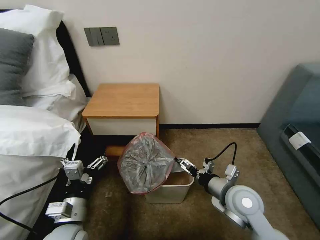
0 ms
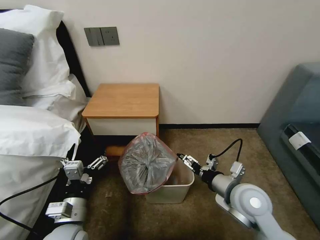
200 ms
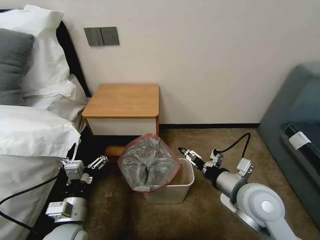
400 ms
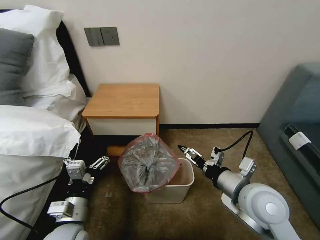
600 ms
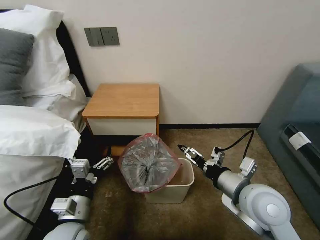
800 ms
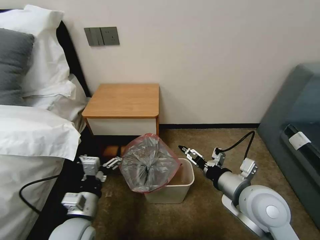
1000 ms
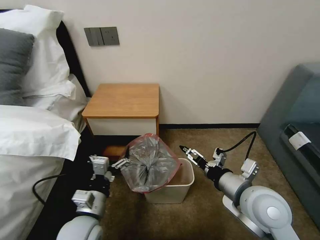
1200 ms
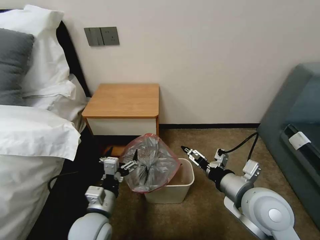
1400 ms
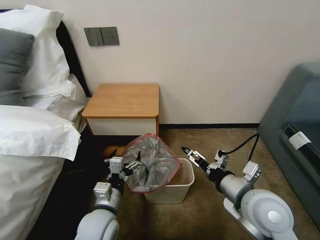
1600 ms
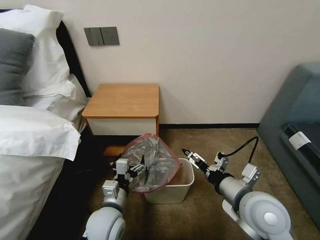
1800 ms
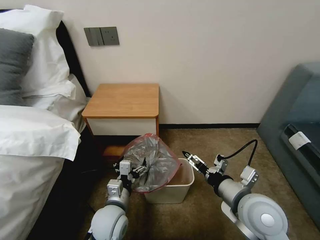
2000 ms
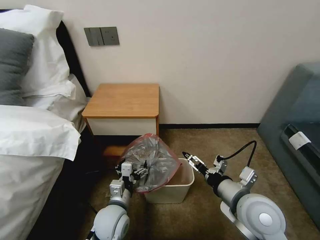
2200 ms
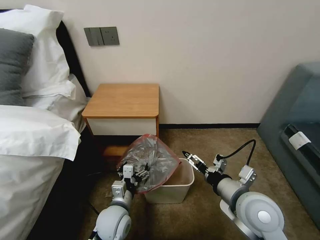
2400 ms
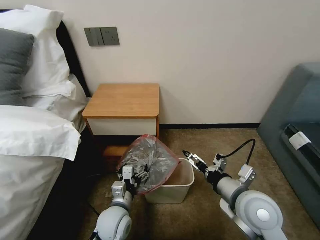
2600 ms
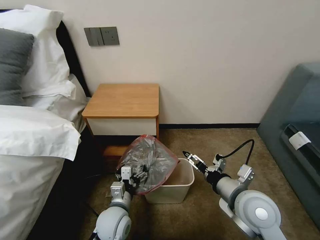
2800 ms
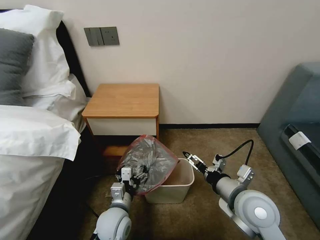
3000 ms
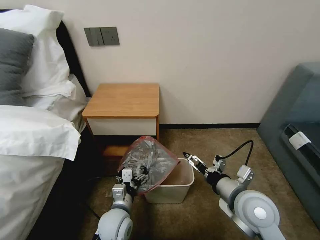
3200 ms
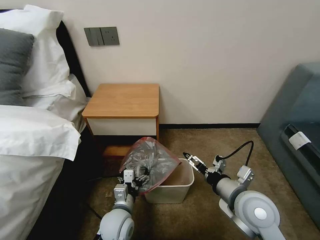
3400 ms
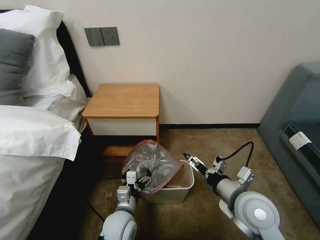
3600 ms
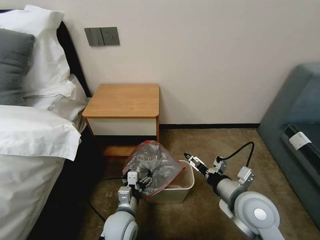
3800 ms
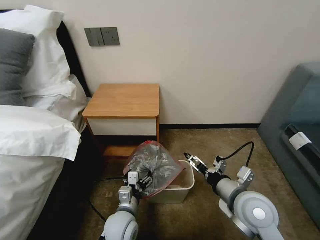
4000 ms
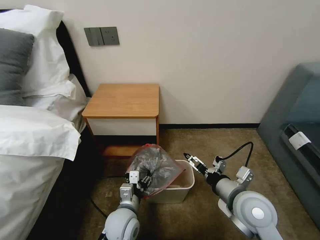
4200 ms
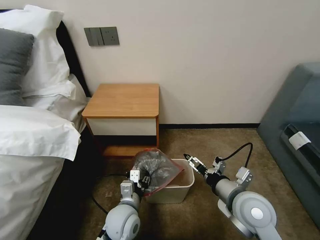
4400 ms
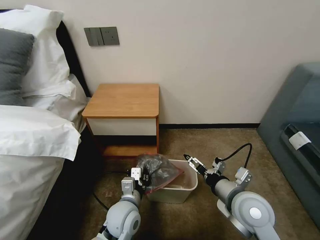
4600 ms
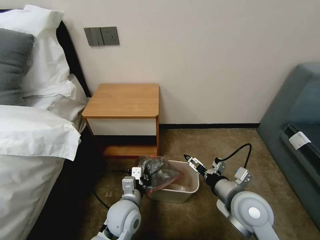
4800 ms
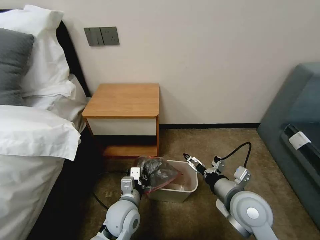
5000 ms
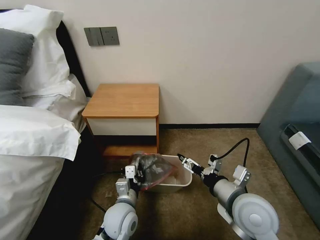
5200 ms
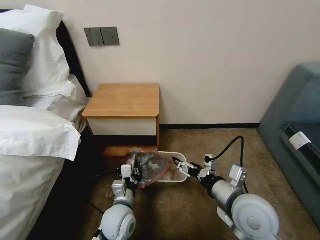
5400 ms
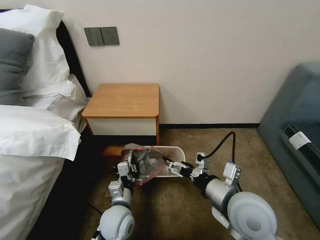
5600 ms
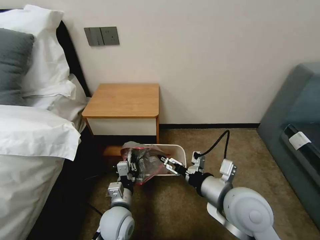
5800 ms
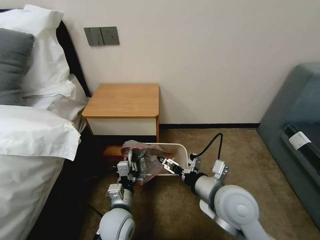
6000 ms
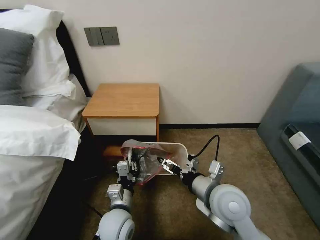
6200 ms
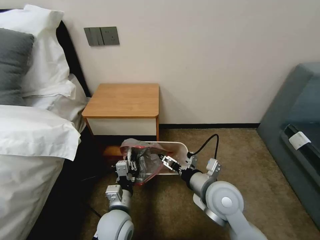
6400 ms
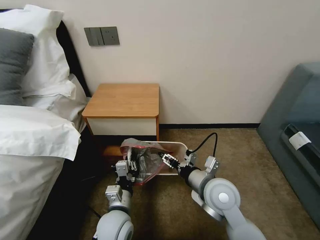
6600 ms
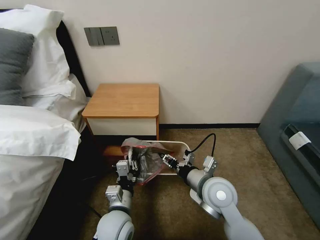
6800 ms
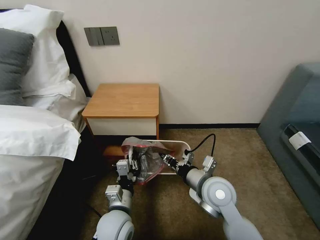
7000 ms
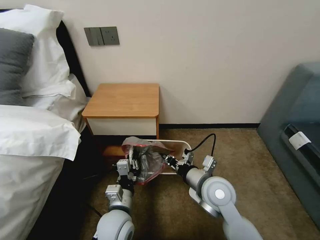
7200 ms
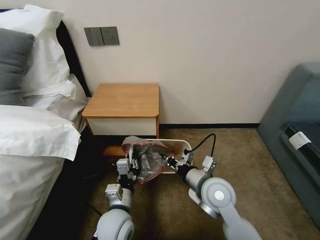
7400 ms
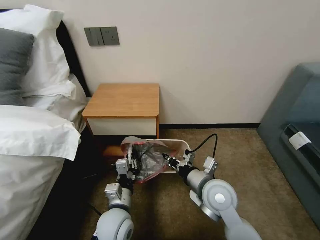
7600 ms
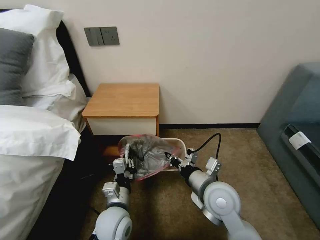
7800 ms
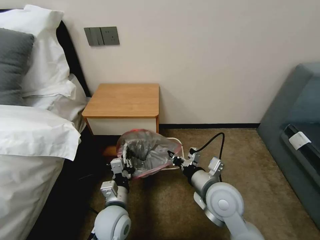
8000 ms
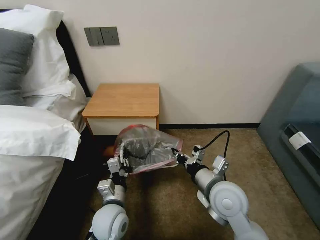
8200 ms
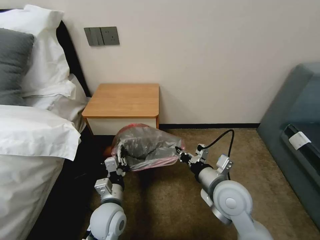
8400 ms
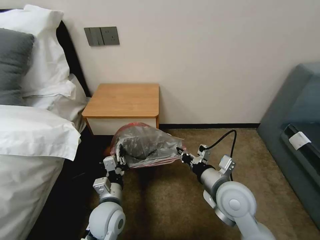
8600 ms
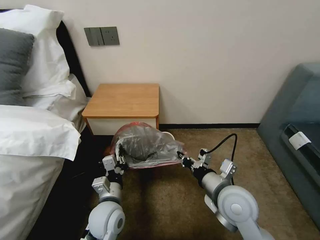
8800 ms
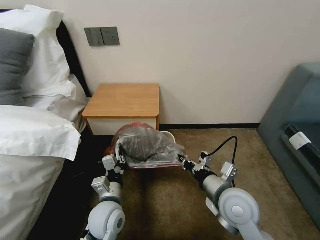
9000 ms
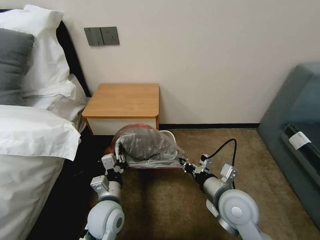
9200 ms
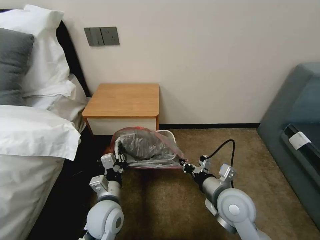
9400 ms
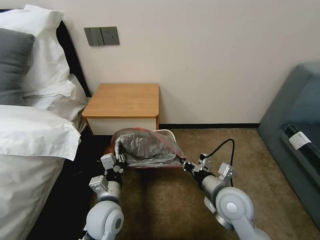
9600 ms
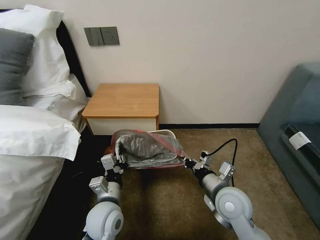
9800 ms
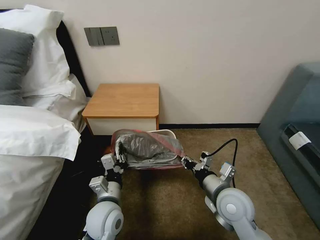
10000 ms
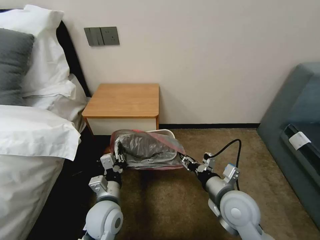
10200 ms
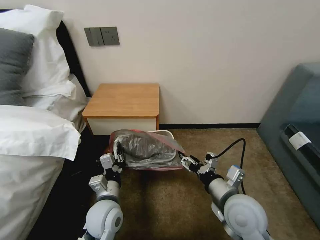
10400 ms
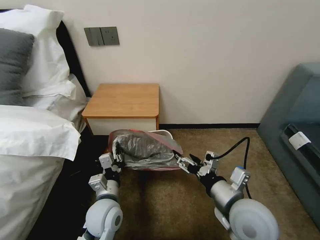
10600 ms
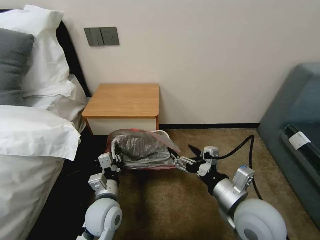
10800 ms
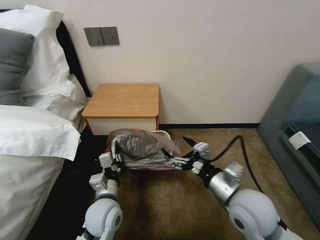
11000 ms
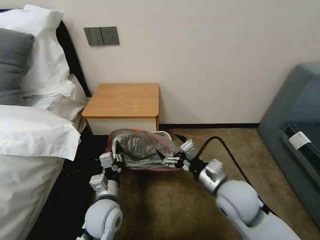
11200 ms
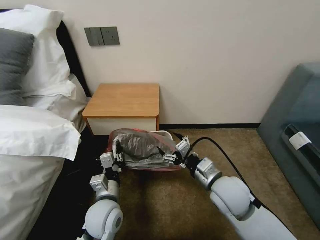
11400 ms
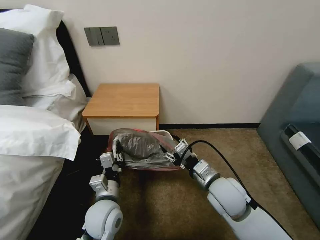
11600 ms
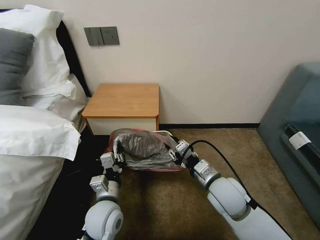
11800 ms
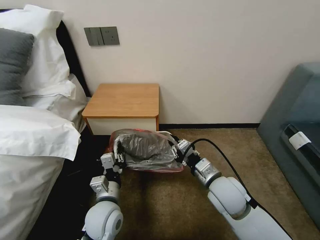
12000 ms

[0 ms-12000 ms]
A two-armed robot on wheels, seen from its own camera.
Task of the whole recording: Pick up the garbage bag from the table and place it over the trash can.
0 ms to 1600 ms: The right gripper is displaced upward by about 5 cm, while the left gripper goes some 5 cm to the right.
1600 ms to 3000 ms: The left gripper travels downward by roughly 5 cm.
3000 ms to 4400 ms: The left gripper closes.
4400 ms to 6000 ms: The left gripper closes up. Meanwhile the right gripper is displaced to the left by about 5 cm.
6000 ms to 7600 ms: The right gripper shifts by about 5 cm, and closes.
7600 ms to 9000 ms: The right gripper ends up about 5 cm from where it was.
9000 ms to 10400 ms: The right gripper opens its fingers.
10400 ms to 12000 ms: The right gripper moves forward, roughly 5 cm, and closes up.

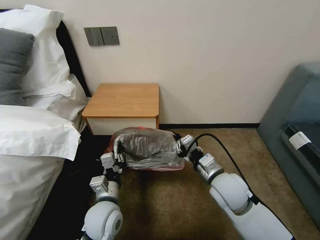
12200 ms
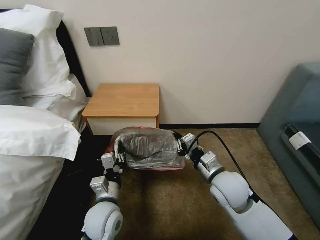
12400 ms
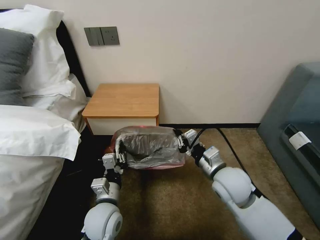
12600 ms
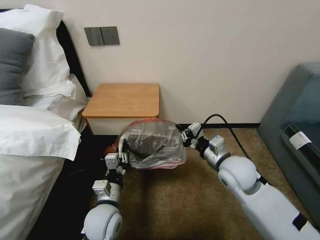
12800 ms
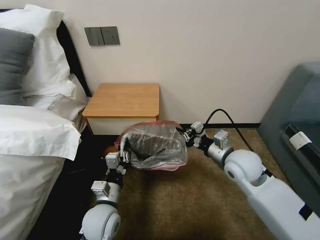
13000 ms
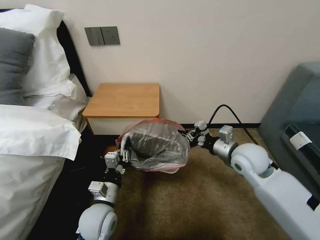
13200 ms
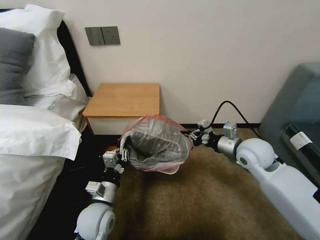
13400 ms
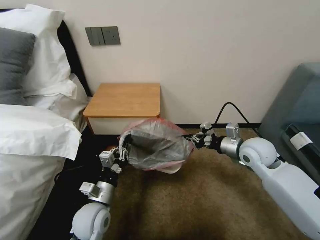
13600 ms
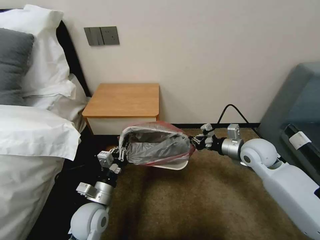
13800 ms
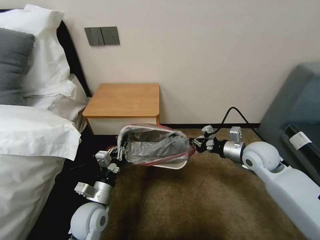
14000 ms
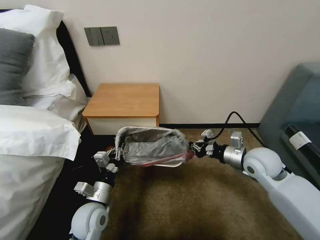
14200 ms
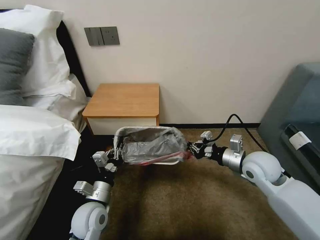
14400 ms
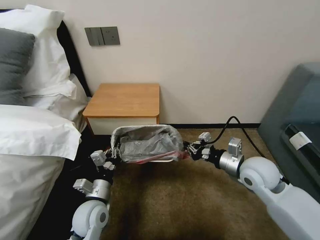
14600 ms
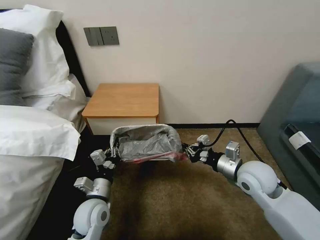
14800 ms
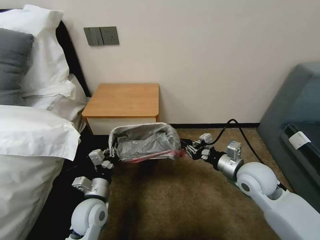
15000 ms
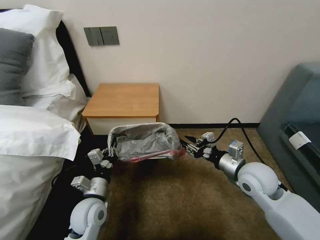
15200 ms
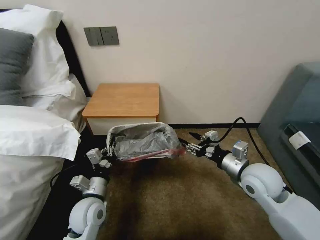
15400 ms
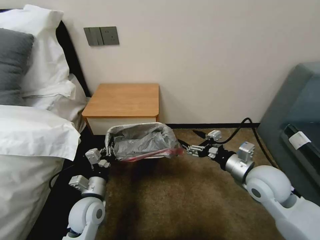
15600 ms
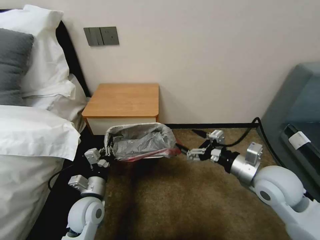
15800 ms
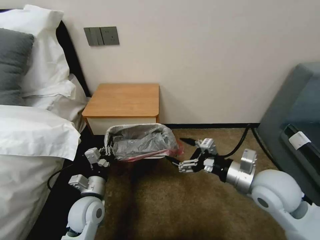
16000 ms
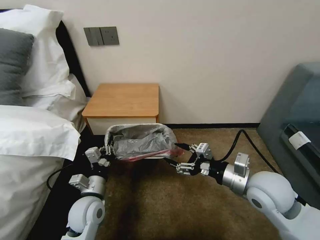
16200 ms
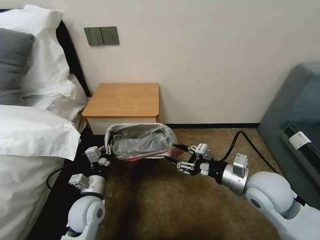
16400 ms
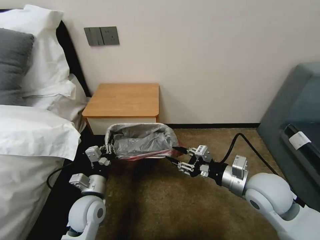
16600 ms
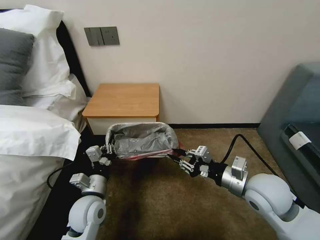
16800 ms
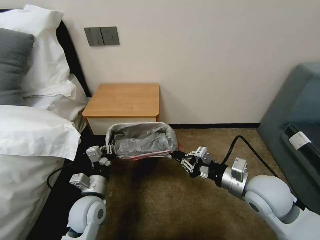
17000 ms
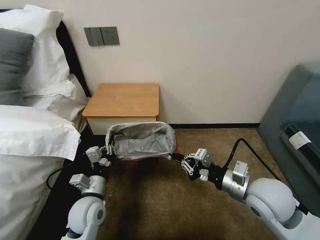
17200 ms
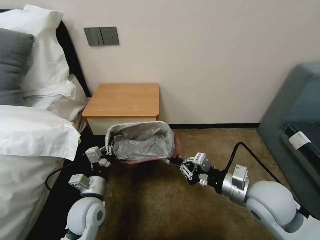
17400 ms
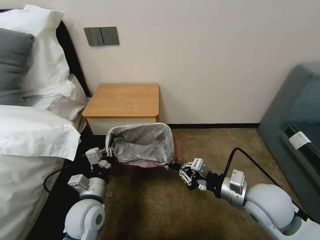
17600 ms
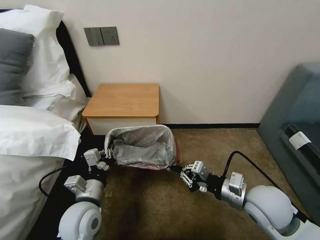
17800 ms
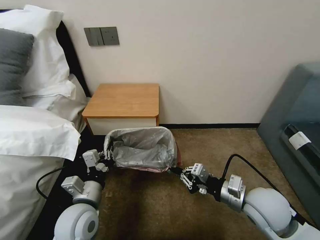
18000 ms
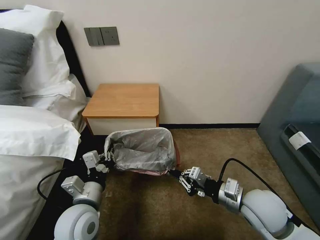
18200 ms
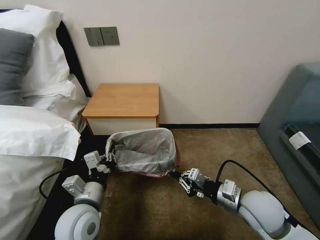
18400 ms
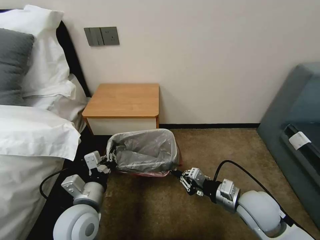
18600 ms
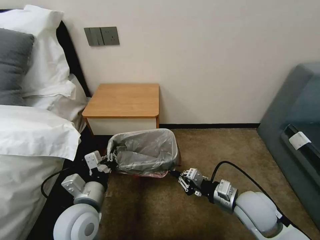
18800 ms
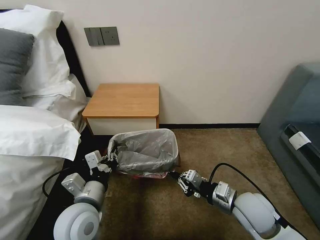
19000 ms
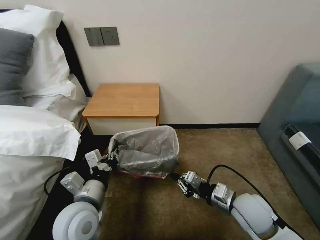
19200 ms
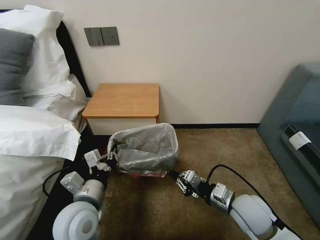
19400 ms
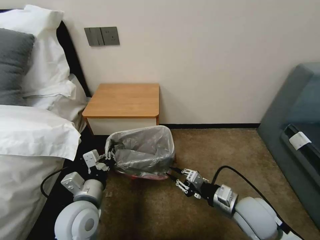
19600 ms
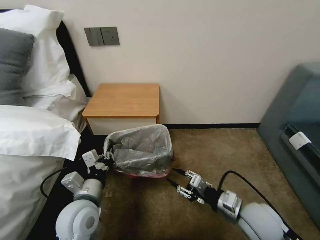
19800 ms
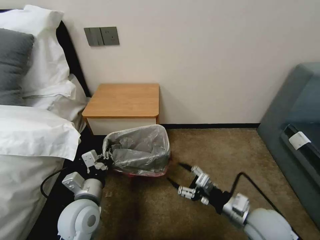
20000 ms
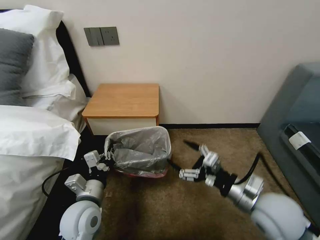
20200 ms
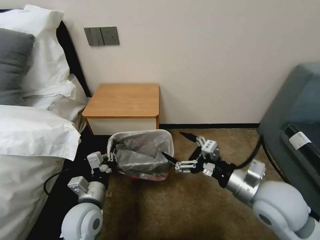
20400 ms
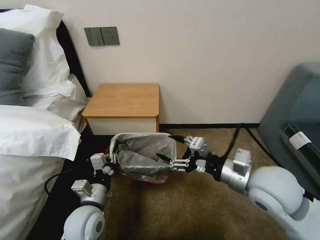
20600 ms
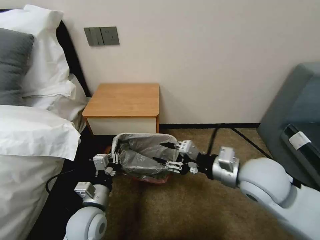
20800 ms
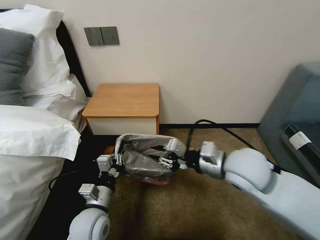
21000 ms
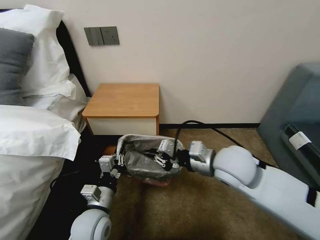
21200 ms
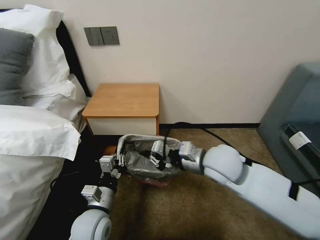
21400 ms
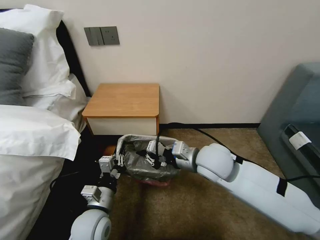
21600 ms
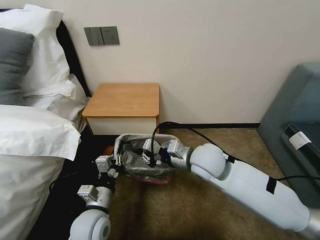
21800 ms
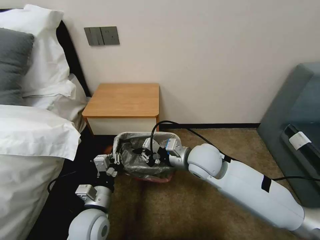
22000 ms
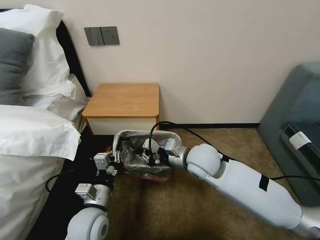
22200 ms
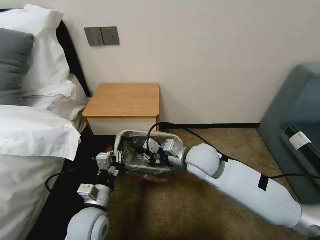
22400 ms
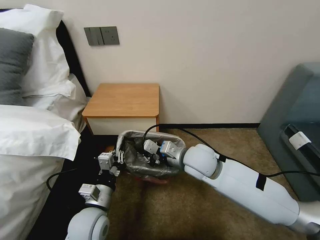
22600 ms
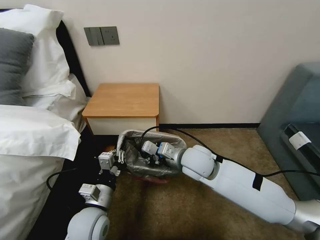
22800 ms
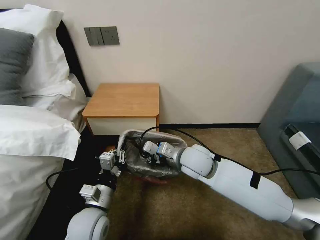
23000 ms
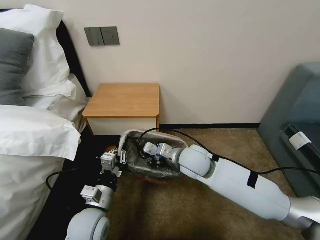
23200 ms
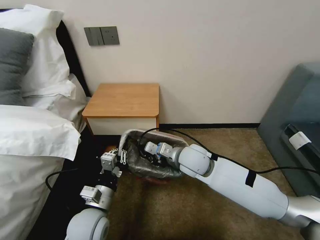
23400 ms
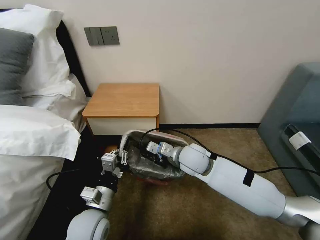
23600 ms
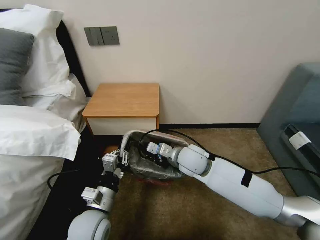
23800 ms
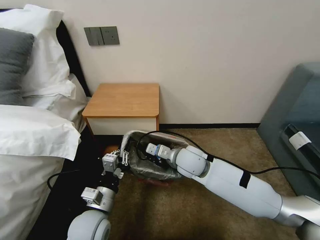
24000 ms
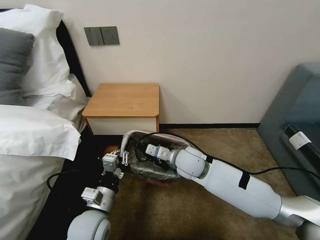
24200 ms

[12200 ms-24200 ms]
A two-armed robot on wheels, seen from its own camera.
Task of the whole recording: Pick up the garbage bag from the table and place it over the trash can.
12200 ms to 13800 ms: The right gripper shifts about 15 cm to the right and forward; the left gripper ends up about 5 cm from where it was.
13800 ms to 15200 ms: The right gripper heads backward, covering roughly 10 cm, and opens up.
15200 ms to 16600 ms: The right gripper ends up some 5 cm from where it was, and opens and closes again.
16600 ms to 18200 ms: The left gripper travels upward by about 5 cm, while the right gripper closes its fingers.
18200 ms to 19800 ms: The right gripper opens its fingers.
19800 ms to 21200 ms: The right gripper is displaced upward, forward and to the left by roughly 20 cm, and closes up. The left gripper travels downward by roughly 5 cm.
21200 ms to 22600 ms: The right gripper heads to the left and downward, covering some 10 cm.
22600 ms to 24200 ms: The right gripper shifts by about 5 cm.
